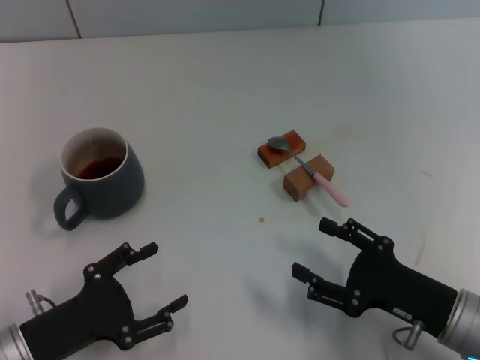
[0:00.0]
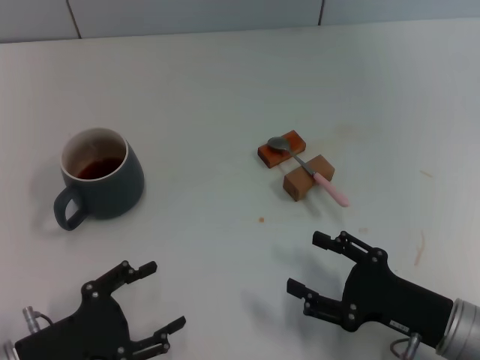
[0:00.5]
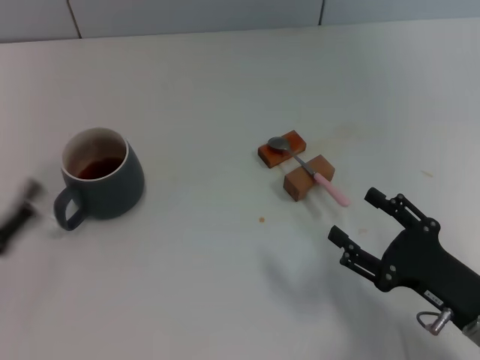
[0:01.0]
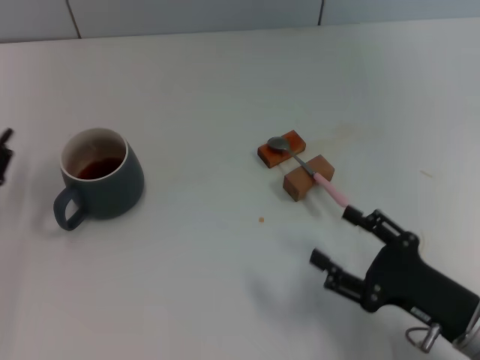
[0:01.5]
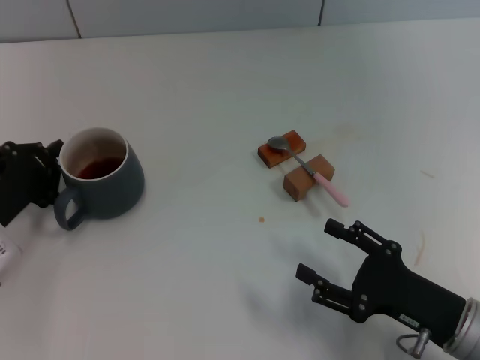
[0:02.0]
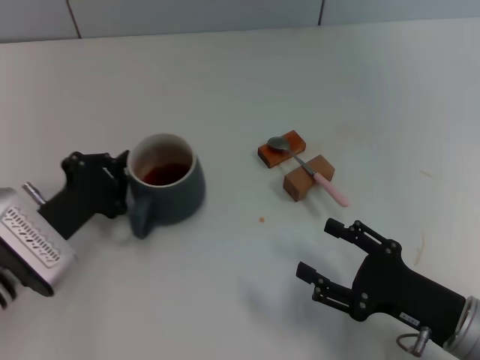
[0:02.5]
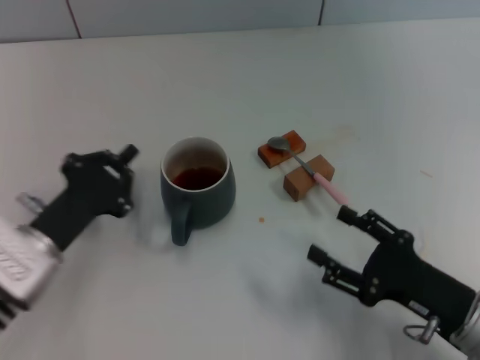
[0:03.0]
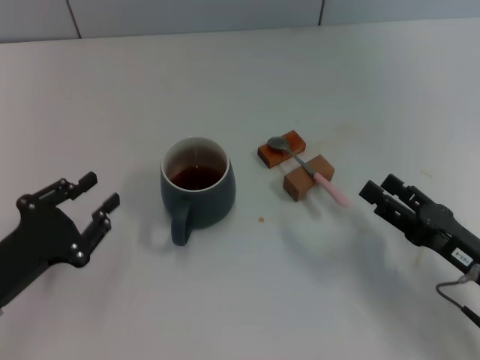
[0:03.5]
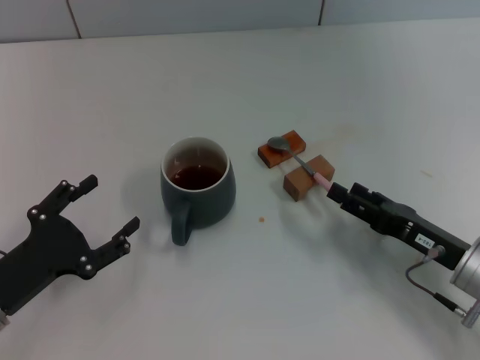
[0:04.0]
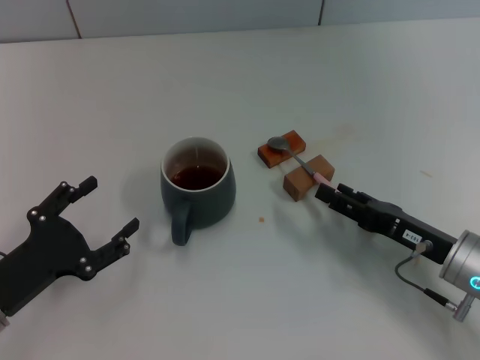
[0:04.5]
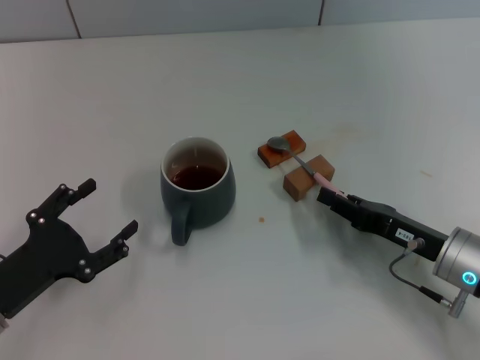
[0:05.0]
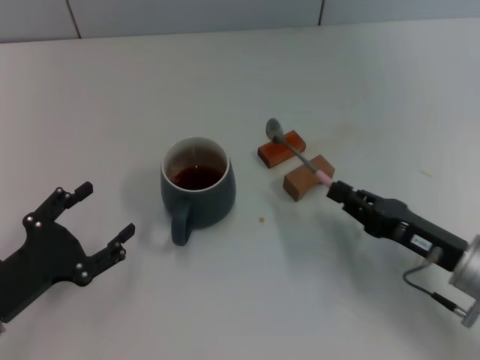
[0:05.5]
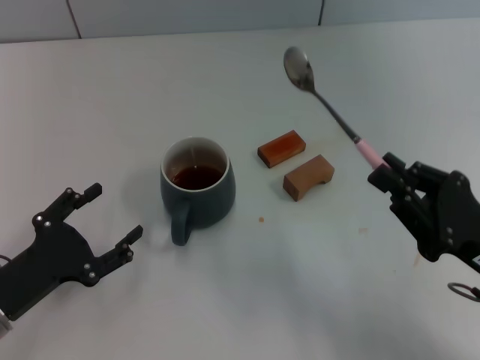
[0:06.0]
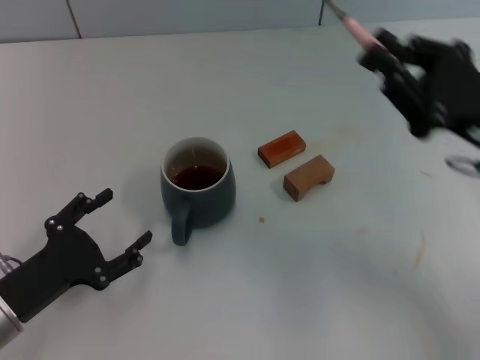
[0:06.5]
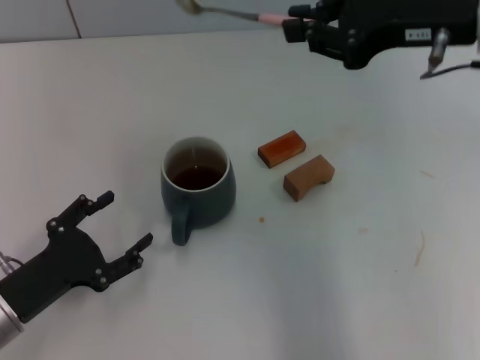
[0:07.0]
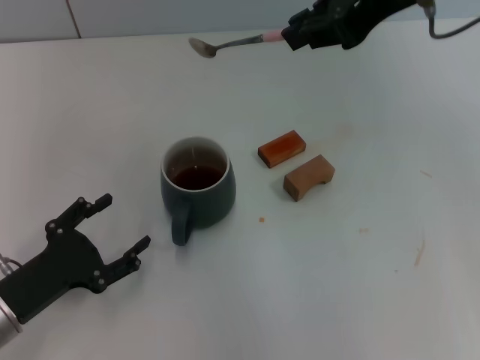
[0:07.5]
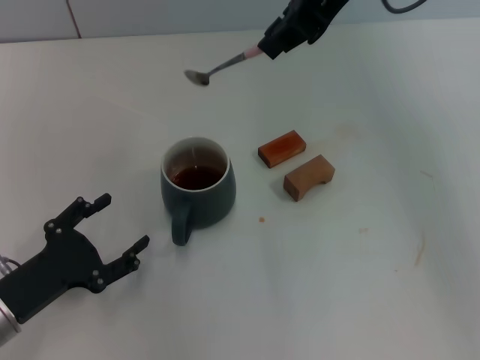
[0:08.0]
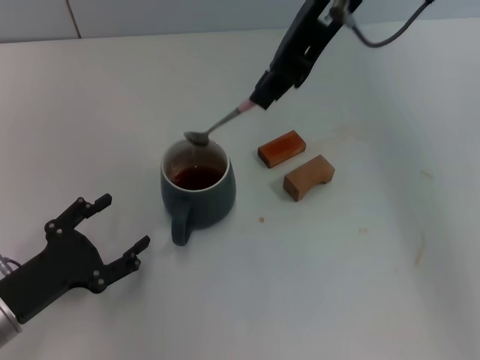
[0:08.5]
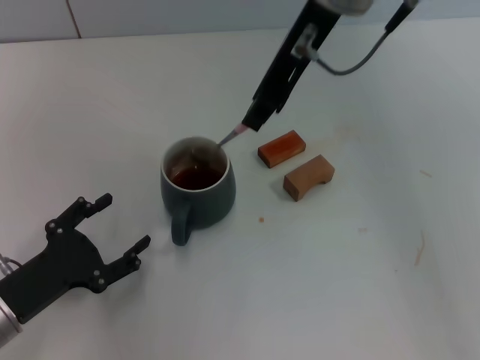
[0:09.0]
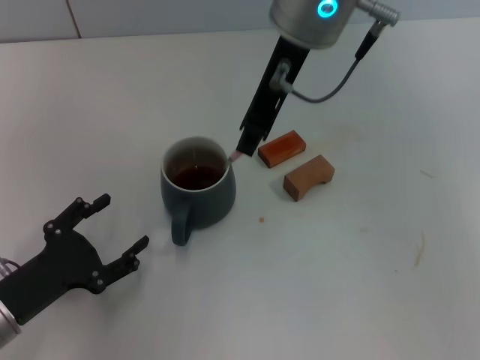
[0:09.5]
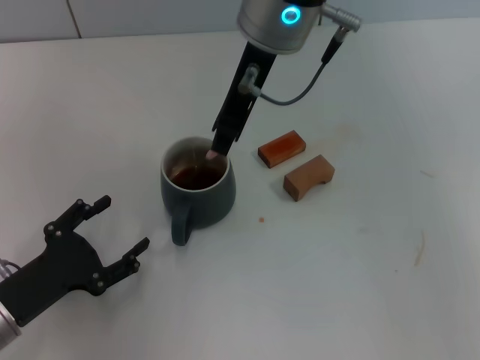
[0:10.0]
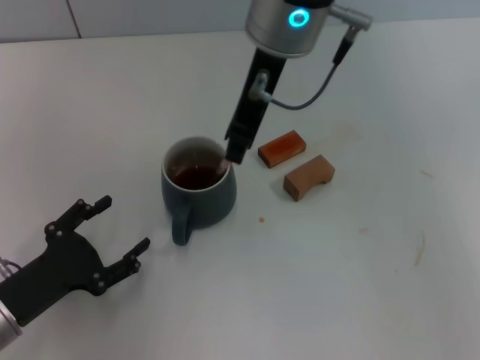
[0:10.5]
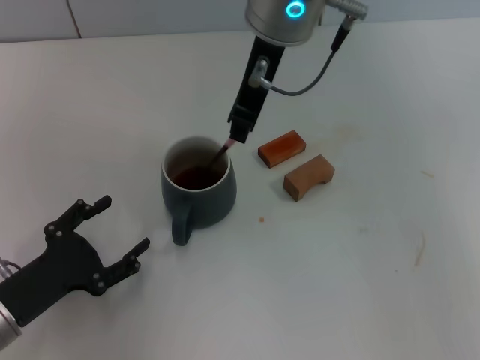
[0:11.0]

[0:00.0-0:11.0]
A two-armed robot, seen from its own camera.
Task of the whole recording: Move the grey cup to the center, lift the pink spoon, stir it three times in the cup, and put the spoon into the cup.
Step, 0:00.0 to 0:02.5: Move the cup with coffee to the center of view with the left gripper.
Step, 0:03.0 to 0:06.0: Pick up the spoon with the right gripper.
Step, 0:06.5 to 0:10.5: Stir the coffee in the cup with the right gripper.
0:00.0 to 0:02.0: The left gripper heads forward, covering some 10 cm, and closes its fingers.
0:02.0 to 0:03.5: The left gripper heads backward, covering some 5 cm.
0:03.5 to 0:05.5: The left gripper opens up. Meanwhile the right gripper closes its fingers.
0:05.5 to 0:07.5: The right gripper is displaced upward by roughly 30 cm.
0:07.5 to 0:09.0: The right gripper heads to the left, covering approximately 10 cm.
0:09.0 to 0:11.0: The right gripper moves some 5 cm.

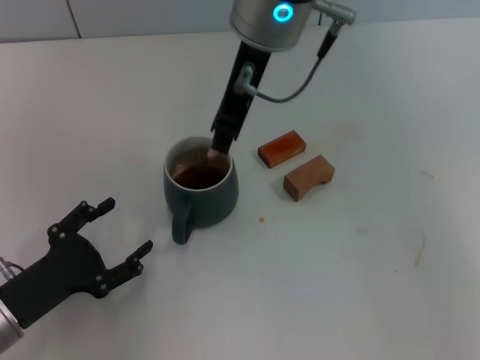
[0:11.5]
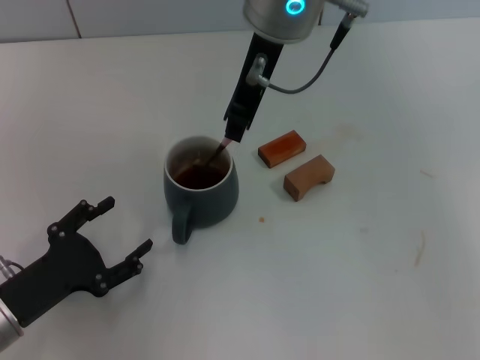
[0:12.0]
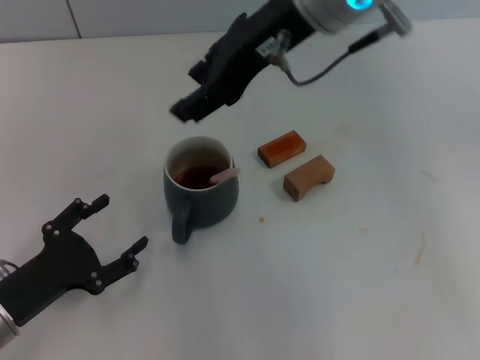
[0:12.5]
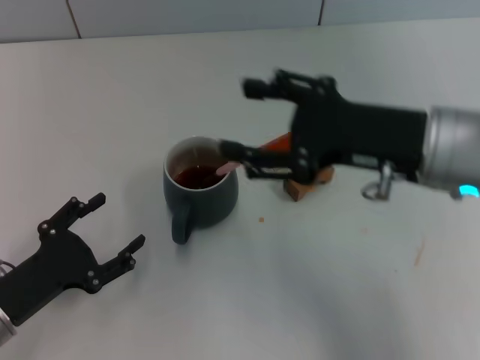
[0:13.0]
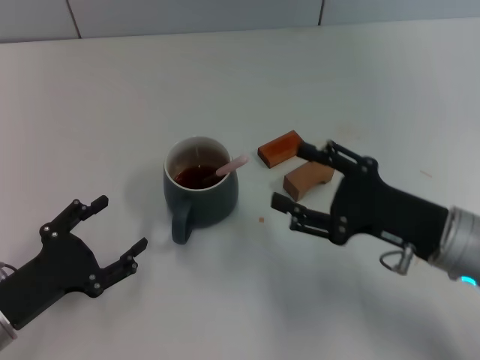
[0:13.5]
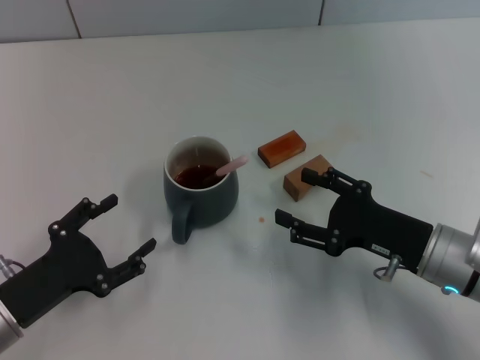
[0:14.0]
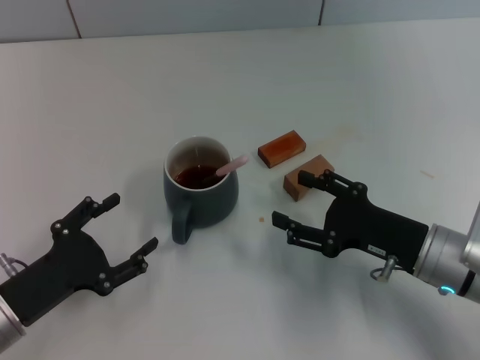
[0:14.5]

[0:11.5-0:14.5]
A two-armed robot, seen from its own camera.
Task of the whole recording: Move the grey cup to the center, lift the pink spoon, stir it three times in the cup, and put the spoon into the cup.
0:11.5 to 0:13.0: The right gripper heads to the right, backward and downward, covering roughly 20 cm, and opens its fingers.
0:13.0 to 0:14.5: The right gripper moves downward, some 15 cm.

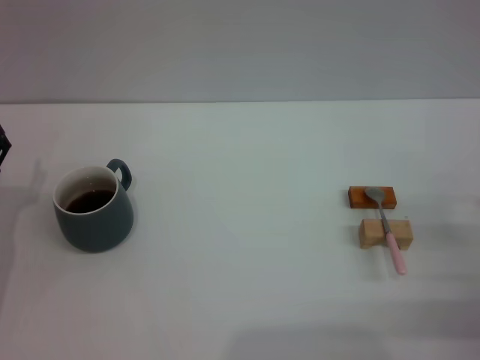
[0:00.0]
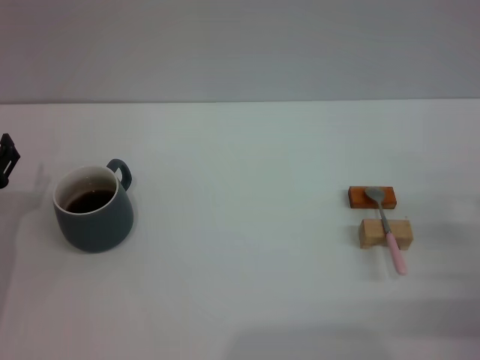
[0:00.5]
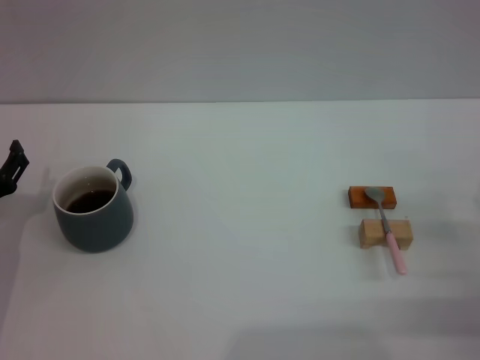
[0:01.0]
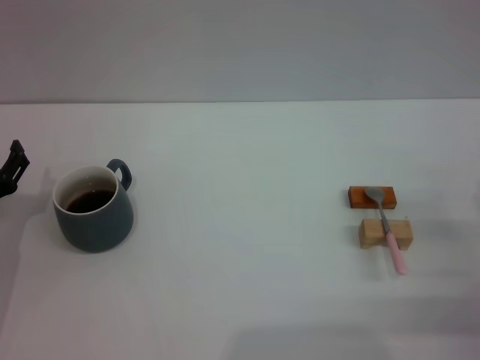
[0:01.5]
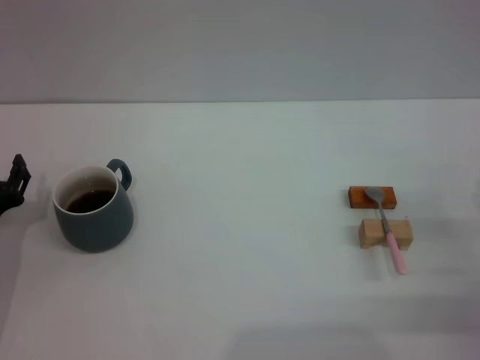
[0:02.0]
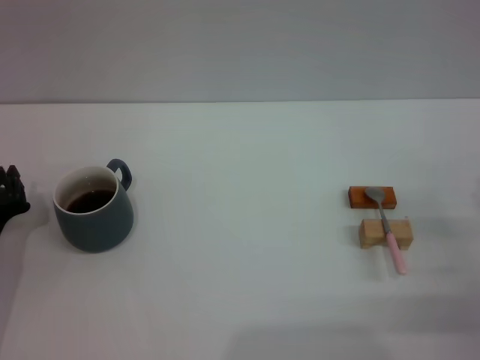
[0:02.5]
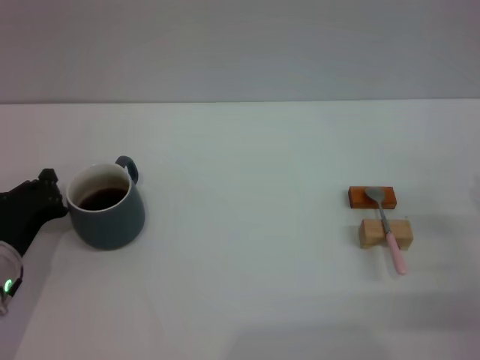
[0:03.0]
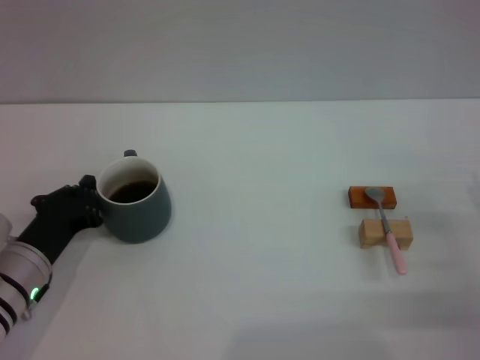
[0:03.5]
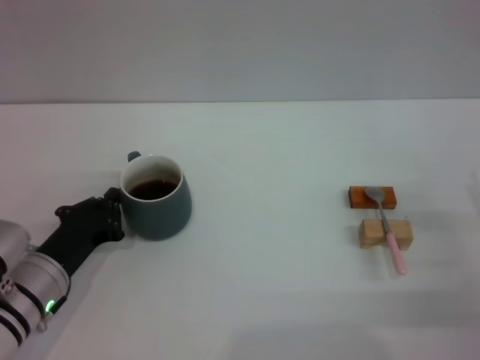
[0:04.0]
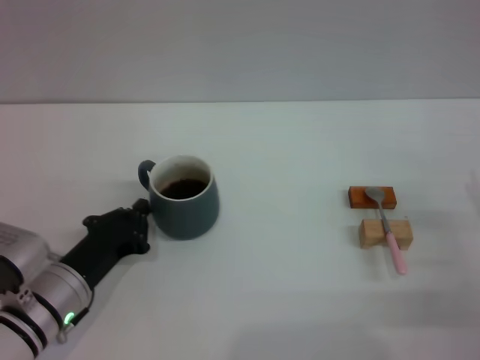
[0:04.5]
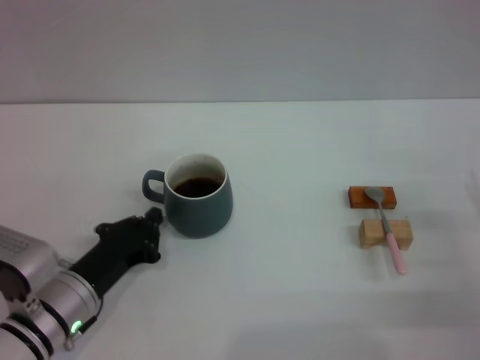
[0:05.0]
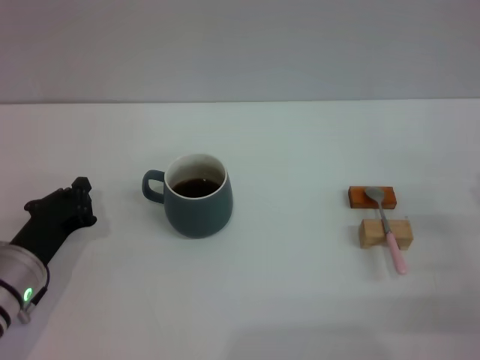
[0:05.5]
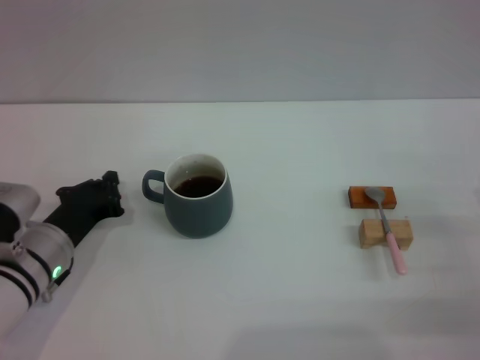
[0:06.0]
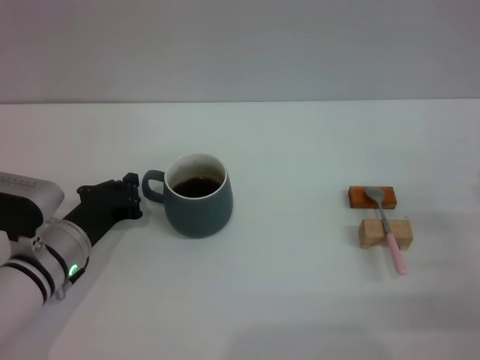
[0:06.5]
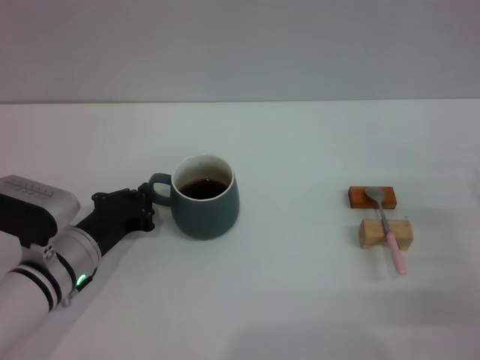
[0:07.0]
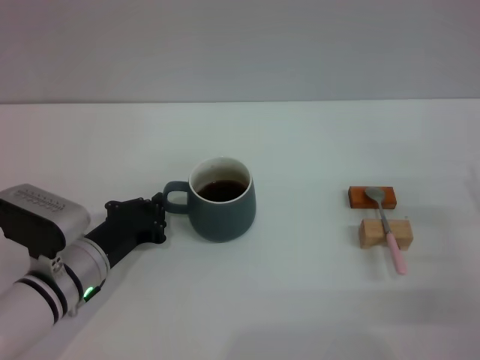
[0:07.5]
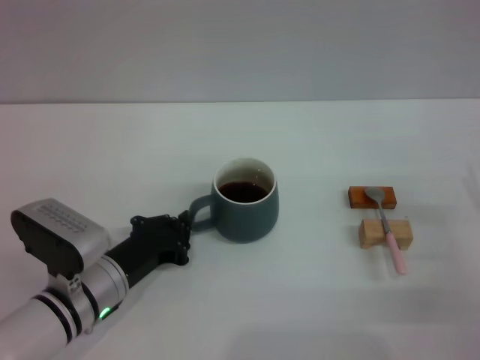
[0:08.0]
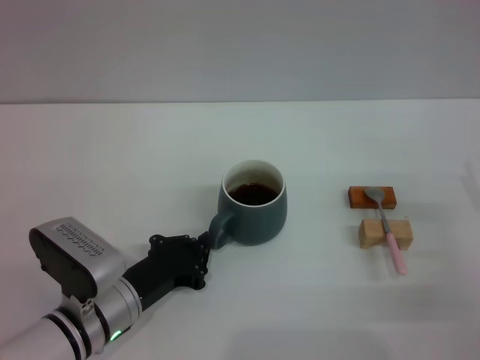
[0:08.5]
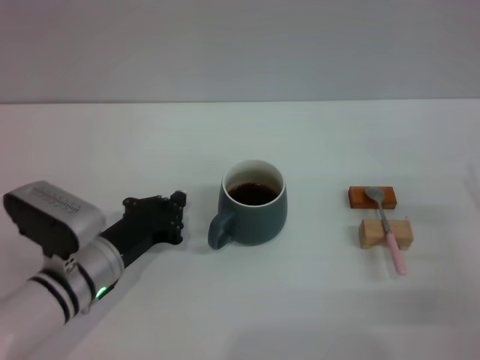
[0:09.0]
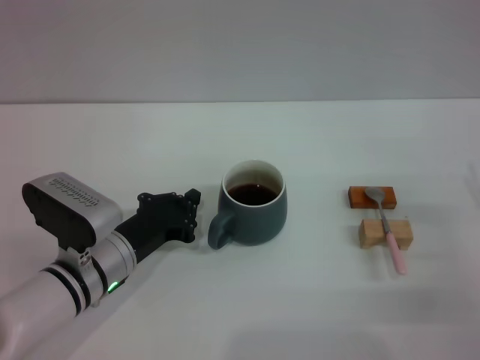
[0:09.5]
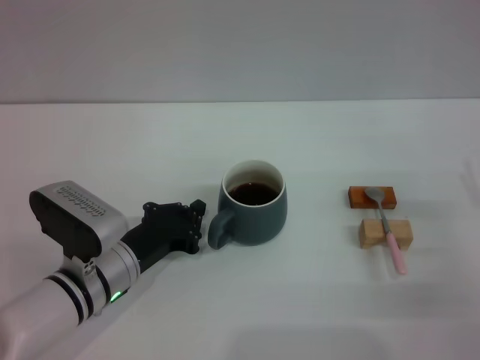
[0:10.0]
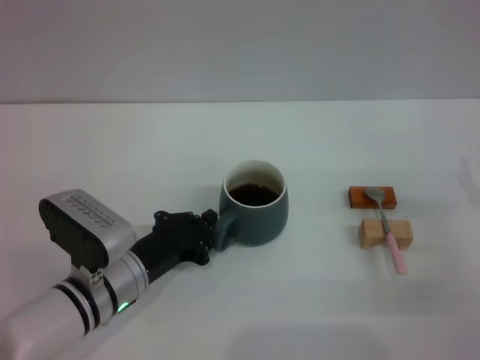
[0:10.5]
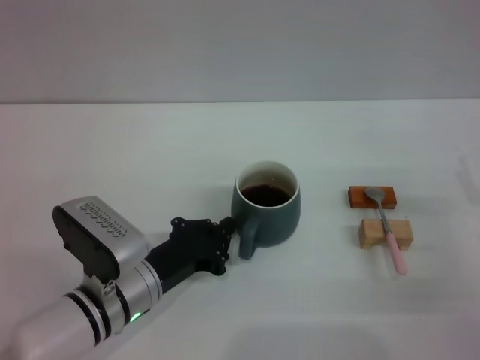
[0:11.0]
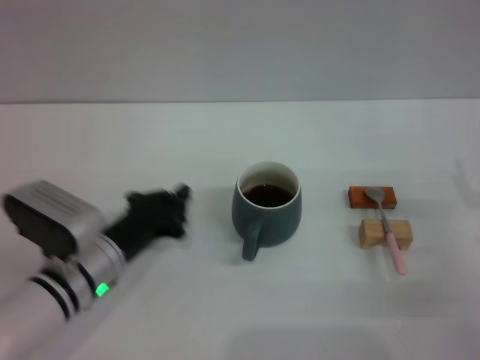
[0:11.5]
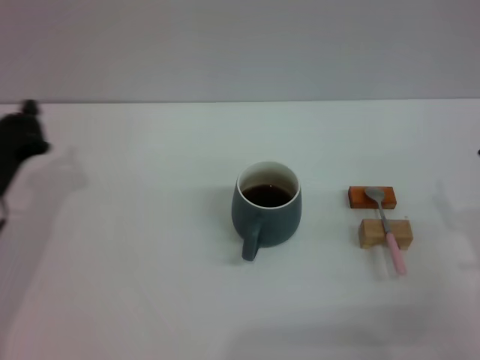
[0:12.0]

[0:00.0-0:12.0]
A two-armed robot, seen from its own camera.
Task of the whole recording: Move the grey cup to the center, lift the pink spoon, stir it three times in the cup, and put the spoon into the cup.
Step, 0:00.0 to 0:11.0: Move the cup with coffee to the center of view with the left gripper.
0:02.0 to 0:04.0: The left gripper moves to the right, approximately 5 cm, and closes.
0:04.0 to 0:06.0: There are only small adjustments of the grippers.
0:06.0 to 0:08.0: The left gripper ends up about 5 cm from where it was.
0:08.0 to 0:10.0: The grippers move only a little.
0:10.0 to 0:12.0: The left gripper is displaced to the left and upward by some 15 cm.
